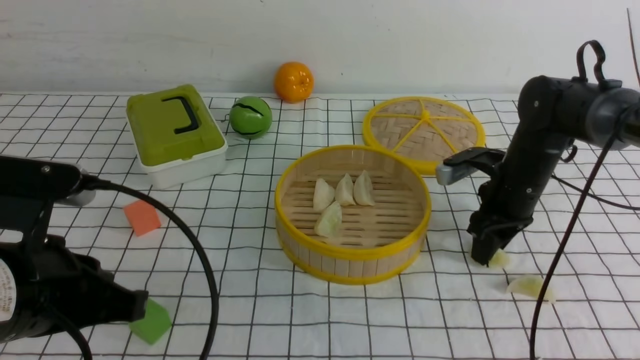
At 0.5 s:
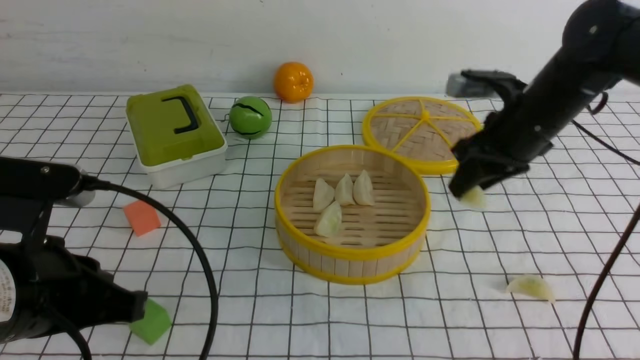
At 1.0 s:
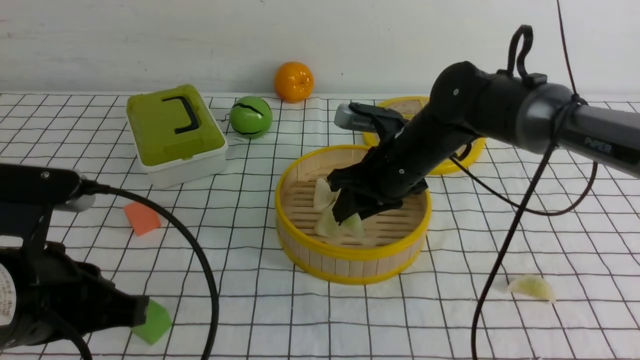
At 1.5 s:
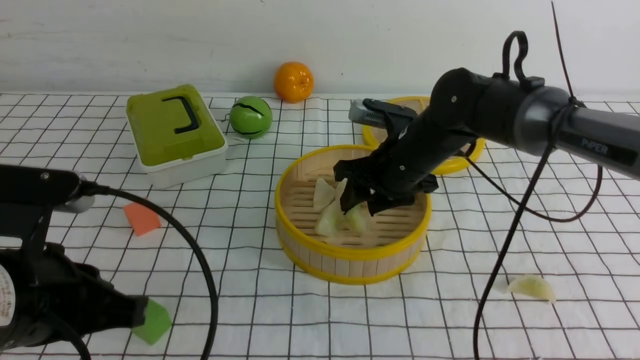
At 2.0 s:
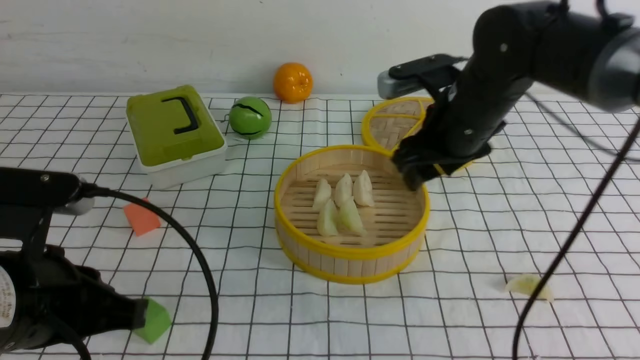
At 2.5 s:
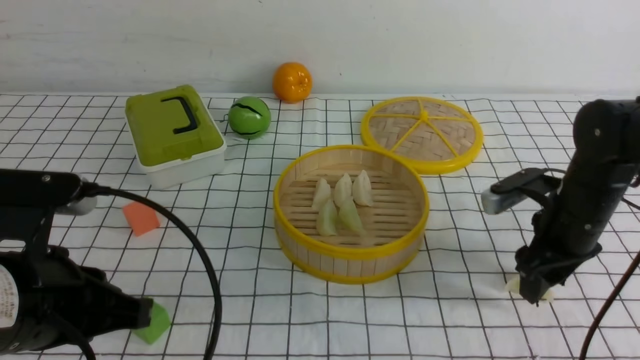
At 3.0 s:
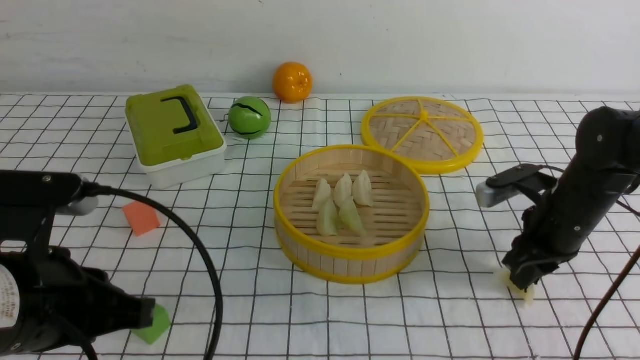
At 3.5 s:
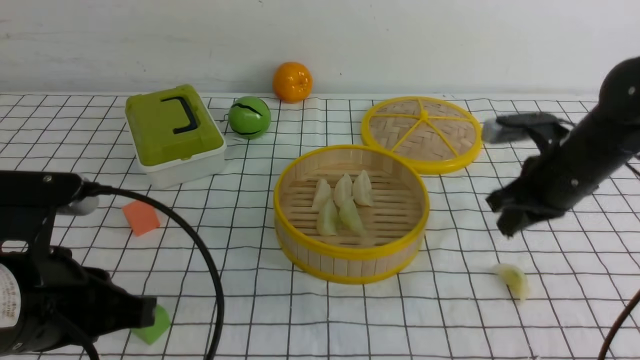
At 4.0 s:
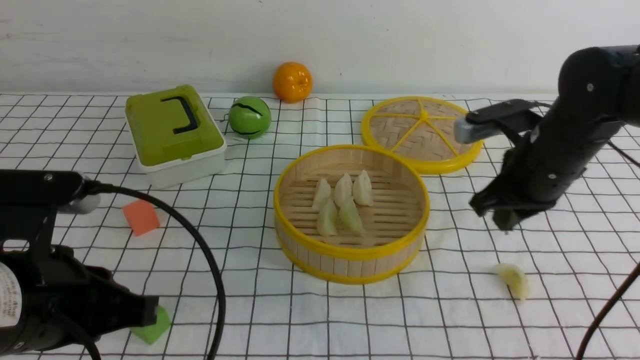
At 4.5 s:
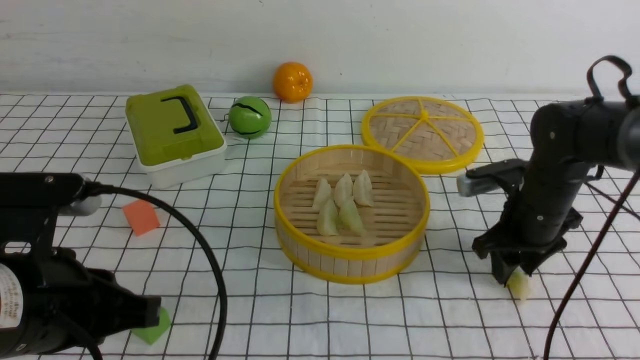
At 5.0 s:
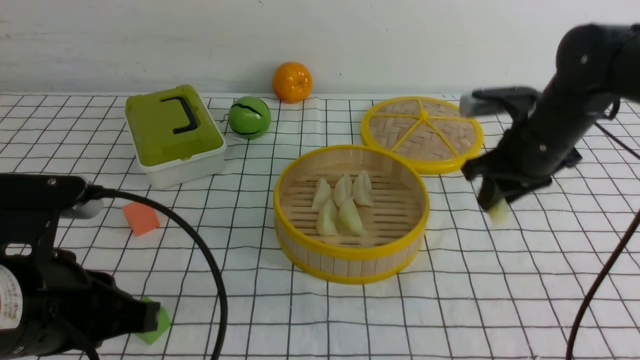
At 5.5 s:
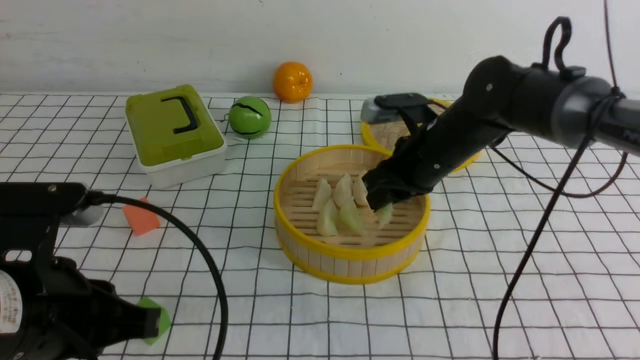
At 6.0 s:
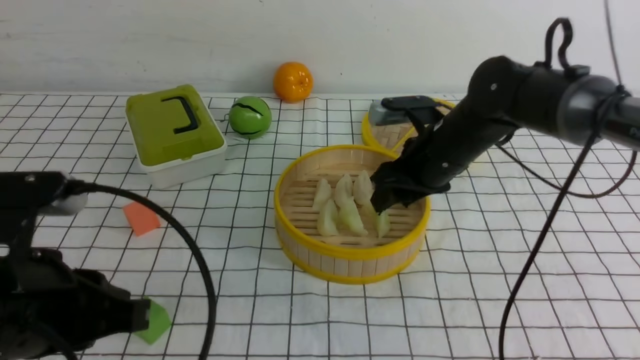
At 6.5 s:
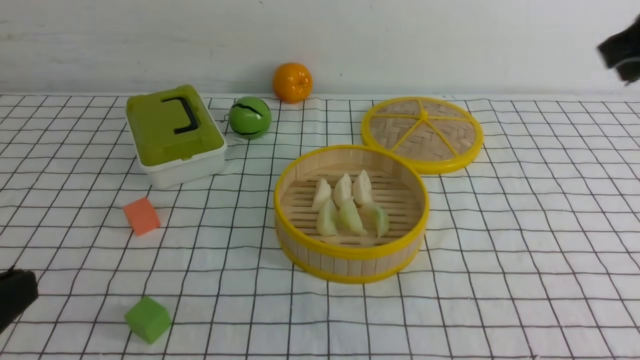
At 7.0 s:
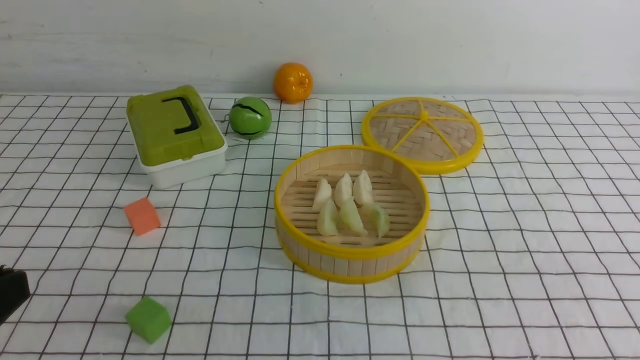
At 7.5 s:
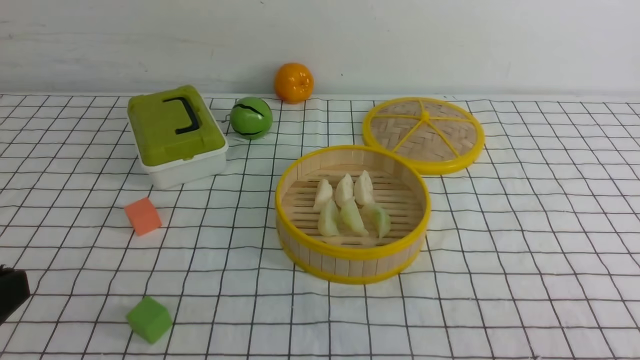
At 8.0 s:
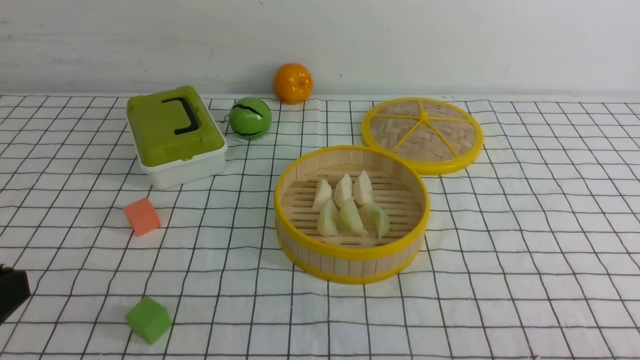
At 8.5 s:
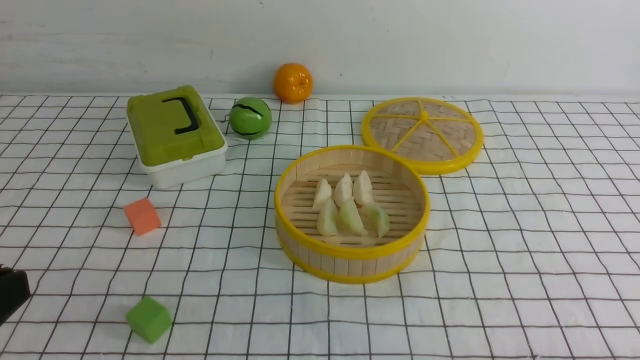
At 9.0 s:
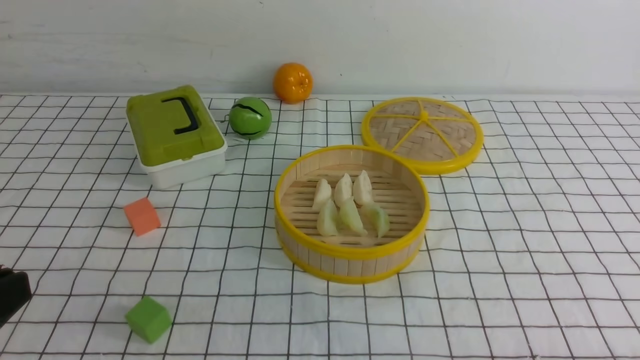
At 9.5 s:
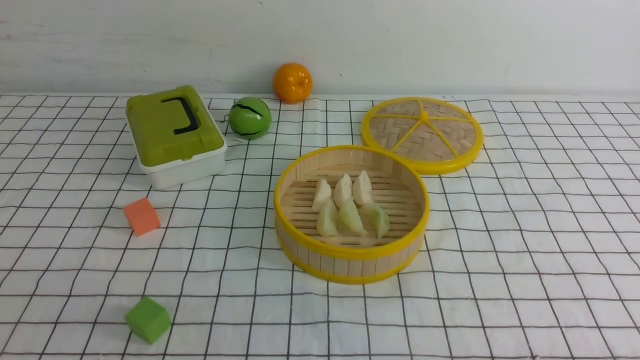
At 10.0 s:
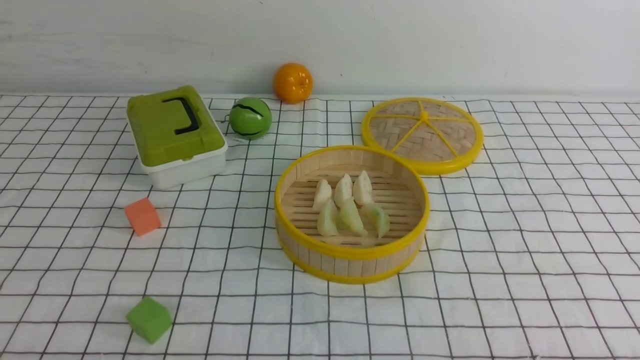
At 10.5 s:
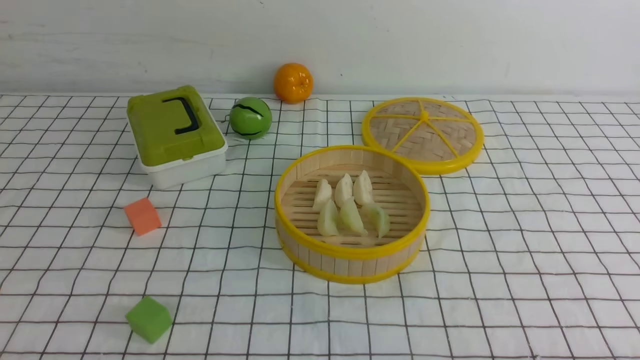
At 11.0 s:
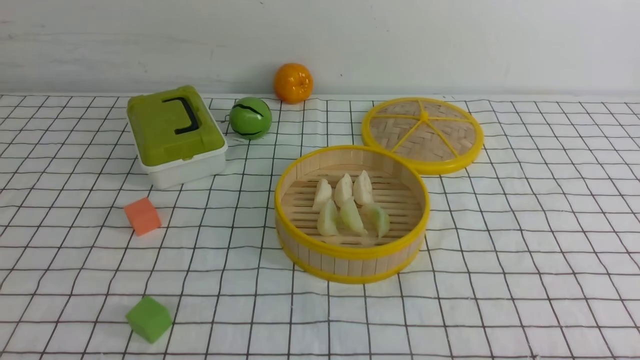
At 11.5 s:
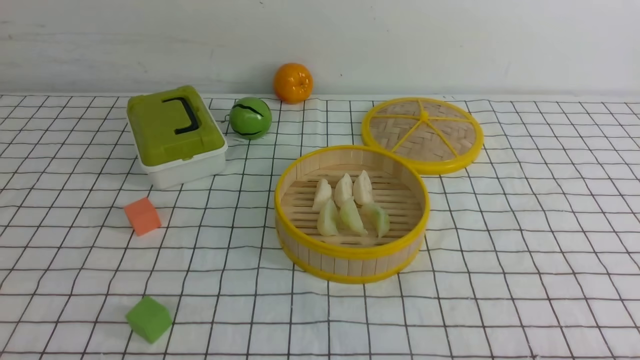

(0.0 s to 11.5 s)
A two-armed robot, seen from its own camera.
Task of the whole recording: put the dumplings into the steamer on the table with the white tablecloth.
Step, 1.0 s - 1.5 s: use the right arm to put the dumpling into the steamer.
Step, 2.0 s - 5.0 s: use the right arm to grab a dumpling.
Step, 5.5 s - 6.0 s: use the right arm to put the dumpling into the steamer.
0.0 s - 2.0 s: The right gripper goes approximately 10 cm upward and to the left, and opens up.
2.0 s - 4.0 s: The right gripper travels to the right by roughly 5 cm, and closes.
4.0 s - 6.0 s: The right gripper moves to the left, roughly 5 cm, and opens.
6.0 s - 7.5 s: The left gripper is displaced backward by some 5 cm. Meanwhile the right gripper travels backward and to the right by about 35 cm, and closes.
